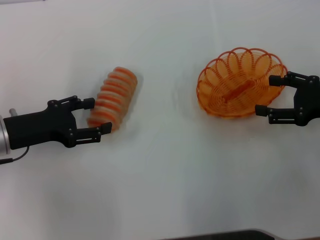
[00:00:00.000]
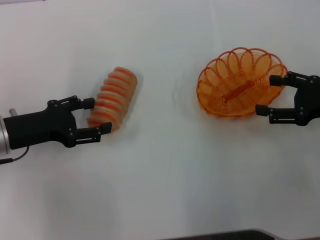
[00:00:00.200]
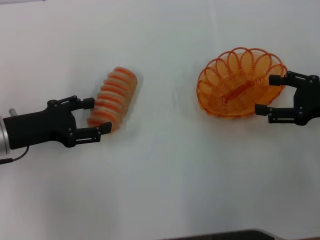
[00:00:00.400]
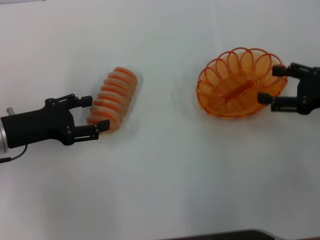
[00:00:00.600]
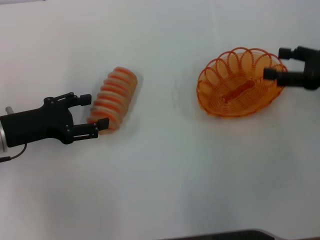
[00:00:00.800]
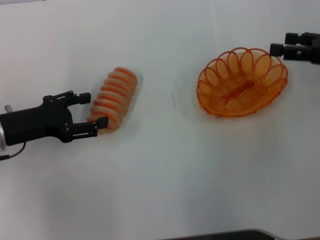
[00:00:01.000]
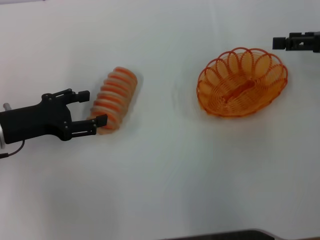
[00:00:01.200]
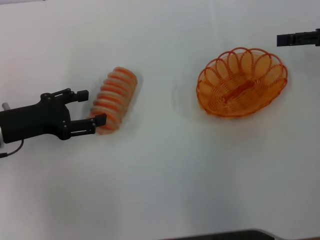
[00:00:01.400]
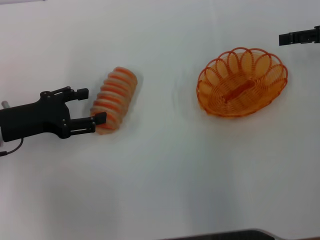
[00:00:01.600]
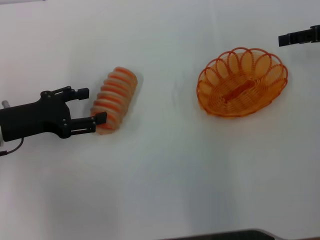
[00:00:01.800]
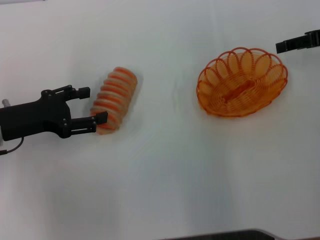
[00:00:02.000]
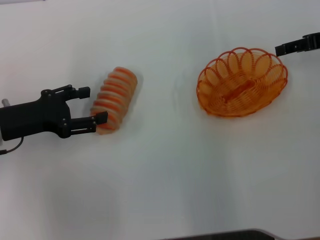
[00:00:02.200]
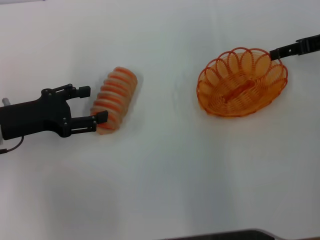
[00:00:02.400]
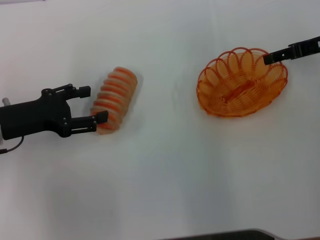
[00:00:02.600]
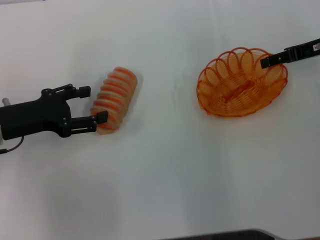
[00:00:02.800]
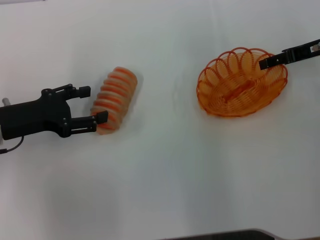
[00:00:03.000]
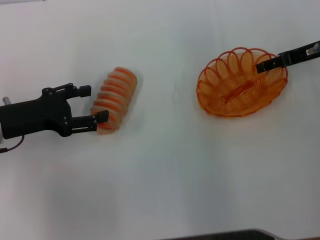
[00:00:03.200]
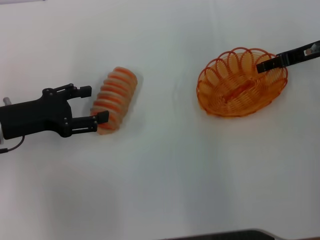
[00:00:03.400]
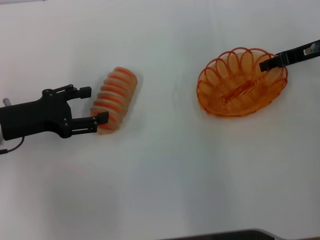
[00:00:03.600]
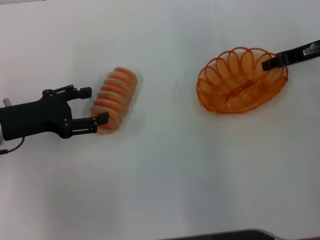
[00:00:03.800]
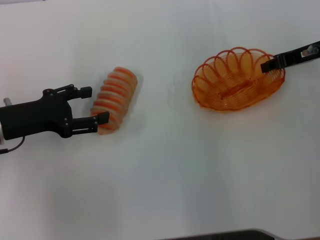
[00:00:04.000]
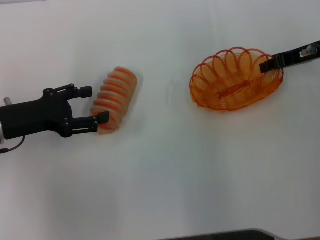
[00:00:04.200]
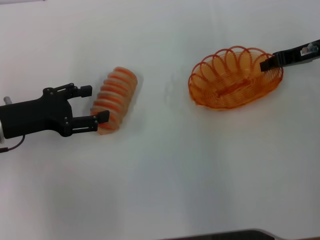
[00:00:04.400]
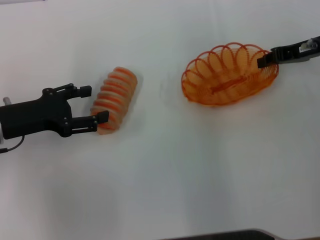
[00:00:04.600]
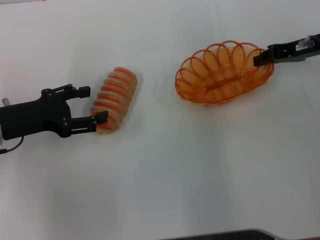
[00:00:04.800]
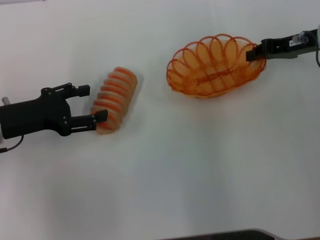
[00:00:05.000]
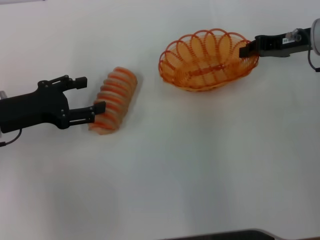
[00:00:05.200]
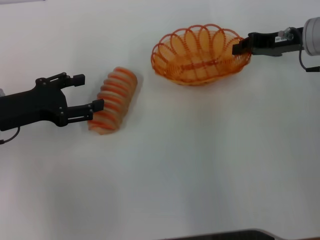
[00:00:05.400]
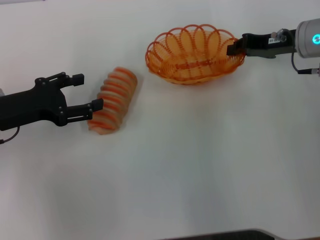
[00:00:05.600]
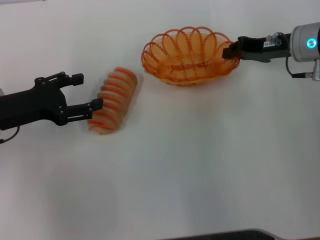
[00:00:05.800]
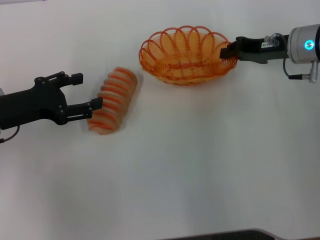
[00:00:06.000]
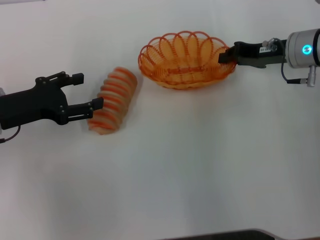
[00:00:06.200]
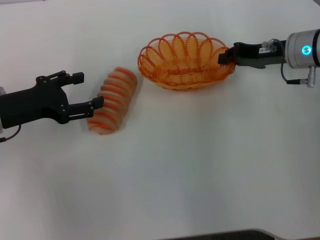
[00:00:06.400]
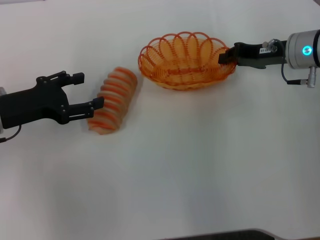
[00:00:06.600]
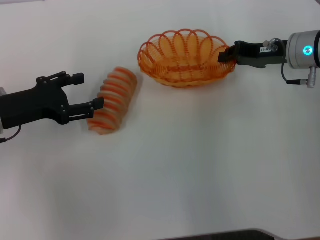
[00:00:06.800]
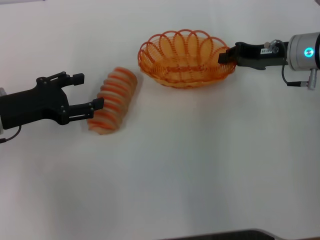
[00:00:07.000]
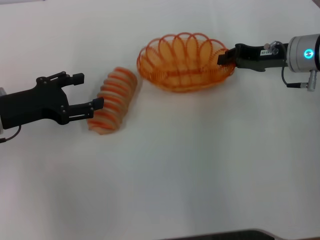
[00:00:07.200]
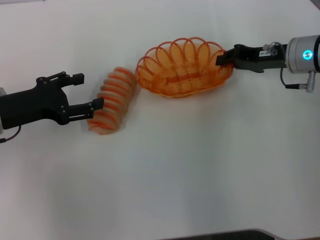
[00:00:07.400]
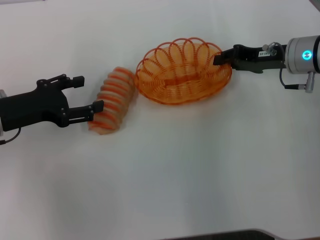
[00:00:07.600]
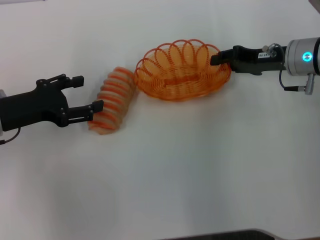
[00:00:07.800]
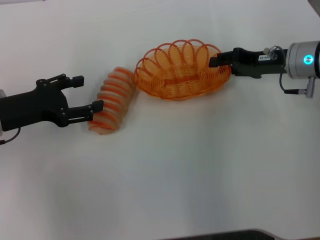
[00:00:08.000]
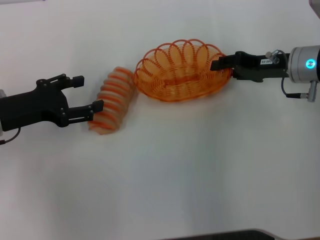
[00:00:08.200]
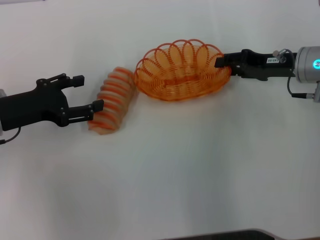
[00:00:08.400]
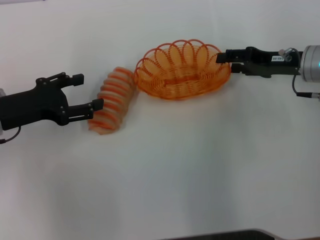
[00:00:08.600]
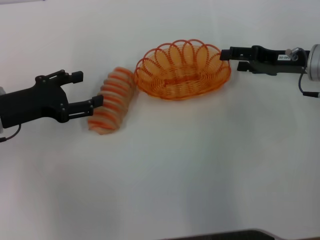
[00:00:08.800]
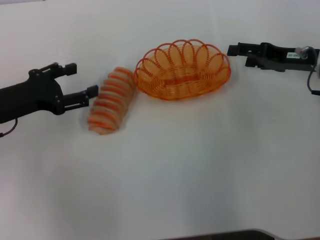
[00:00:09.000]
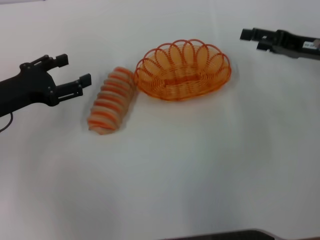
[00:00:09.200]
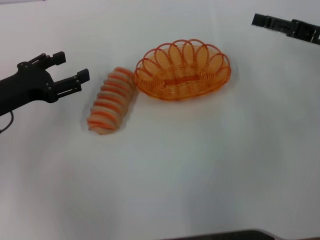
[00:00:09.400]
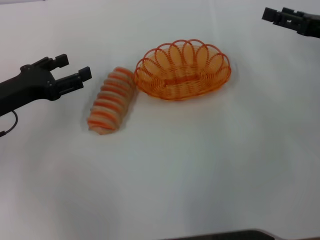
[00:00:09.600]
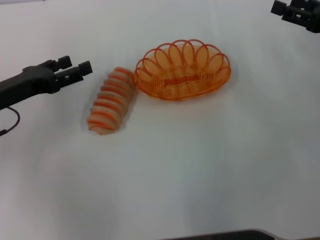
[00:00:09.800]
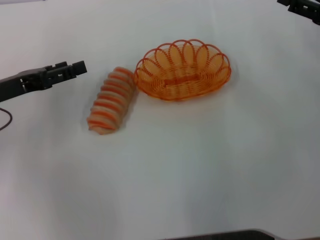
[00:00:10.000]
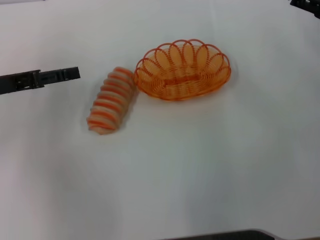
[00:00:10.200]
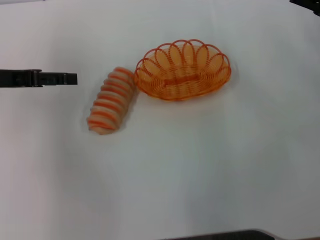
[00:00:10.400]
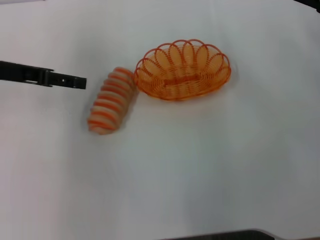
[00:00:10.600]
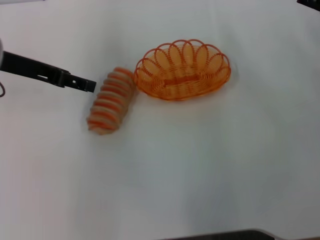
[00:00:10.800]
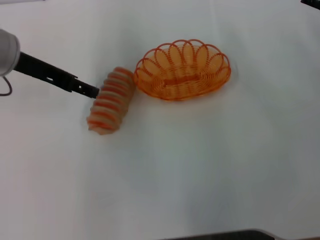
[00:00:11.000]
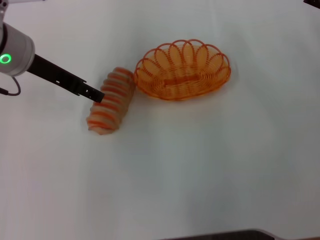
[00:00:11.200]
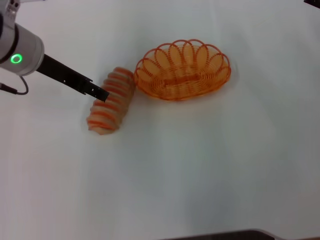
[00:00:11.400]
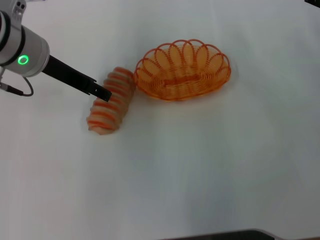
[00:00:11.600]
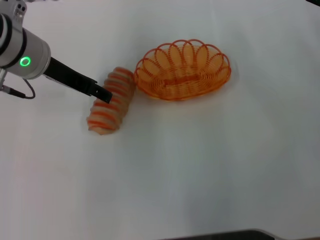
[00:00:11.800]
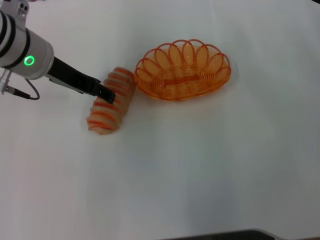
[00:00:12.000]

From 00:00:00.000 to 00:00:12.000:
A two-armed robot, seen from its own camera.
Step, from 00:00:00.000 to 00:00:04.600: Pick up the basket with the right gripper.
Step, from 00:00:04.800 to 00:00:09.000: Place the basket in the center of view with the right gripper.
From 00:00:00.000 to 00:00:01.600: The right gripper shifts about 10 cm forward and upward.
From 00:00:01.600 to 00:00:03.000: The right gripper moves roughly 5 cm.
From 00:00:03.000 to 00:00:04.400: The right gripper closes its fingers.
From 00:00:04.400 to 00:00:06.000: The right gripper changes place by some 5 cm.
From 00:00:06.000 to 00:00:07.600: There are only small adjustments of the grippers.
From 00:00:07.600 to 00:00:09.000: The right gripper opens.
From 00:00:09.000 to 00:00:10.400: The left gripper heads upward, covering about 5 cm; the right gripper shifts about 5 cm to the right.
From 00:00:10.400 to 00:00:12.000: The left gripper shifts about 10 cm to the right.

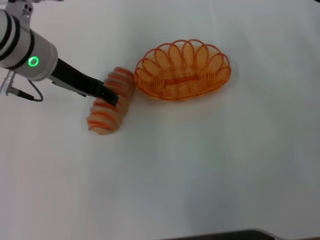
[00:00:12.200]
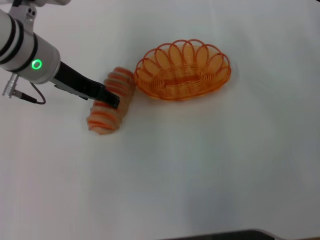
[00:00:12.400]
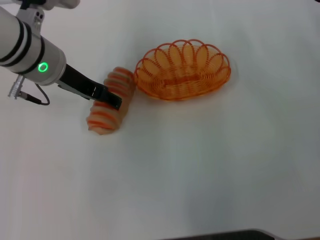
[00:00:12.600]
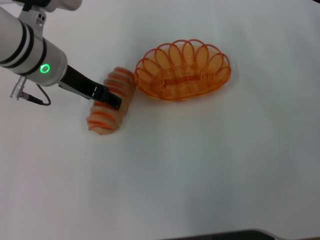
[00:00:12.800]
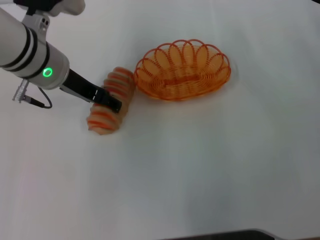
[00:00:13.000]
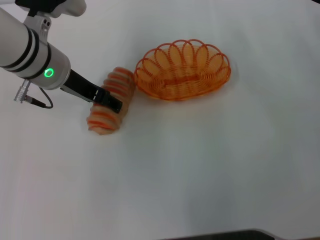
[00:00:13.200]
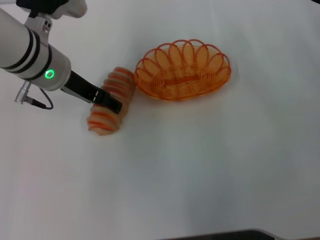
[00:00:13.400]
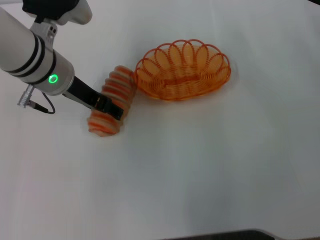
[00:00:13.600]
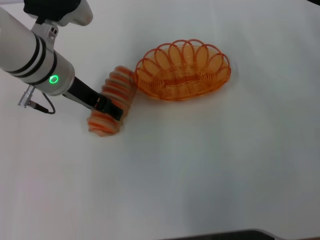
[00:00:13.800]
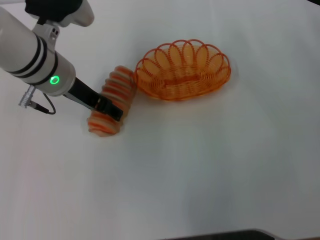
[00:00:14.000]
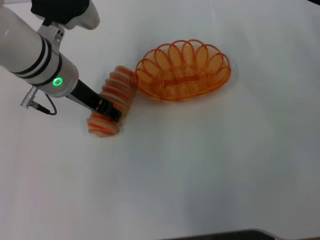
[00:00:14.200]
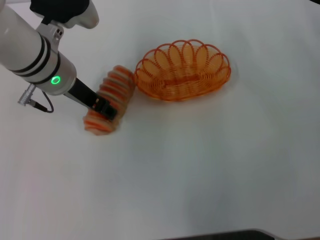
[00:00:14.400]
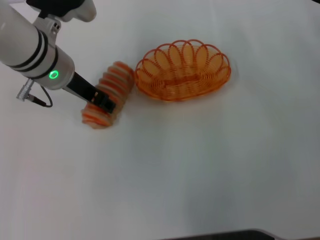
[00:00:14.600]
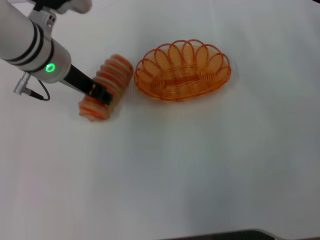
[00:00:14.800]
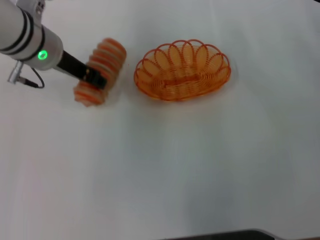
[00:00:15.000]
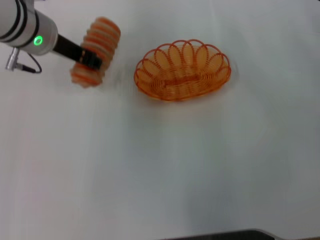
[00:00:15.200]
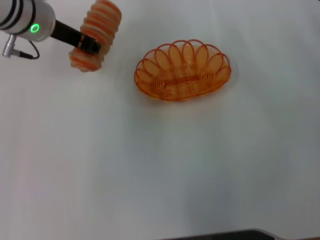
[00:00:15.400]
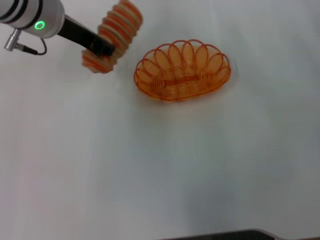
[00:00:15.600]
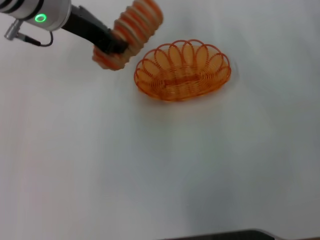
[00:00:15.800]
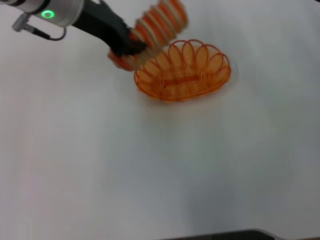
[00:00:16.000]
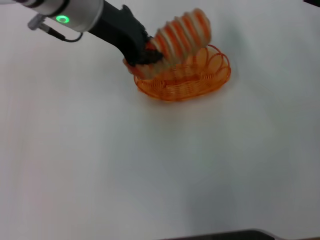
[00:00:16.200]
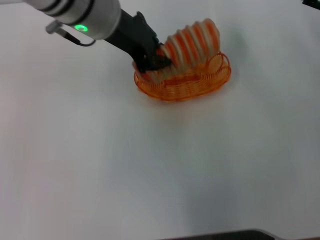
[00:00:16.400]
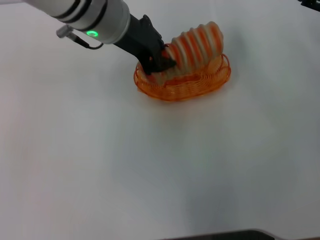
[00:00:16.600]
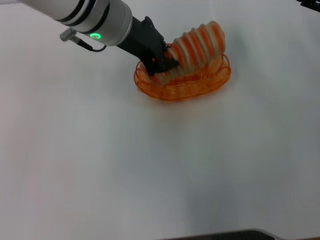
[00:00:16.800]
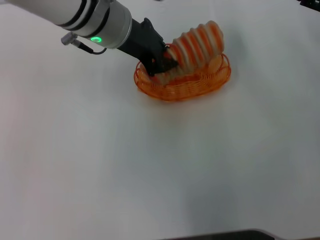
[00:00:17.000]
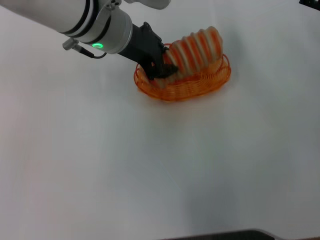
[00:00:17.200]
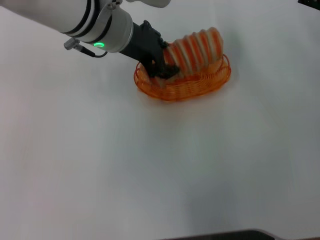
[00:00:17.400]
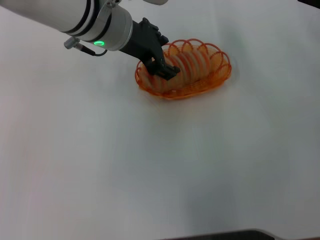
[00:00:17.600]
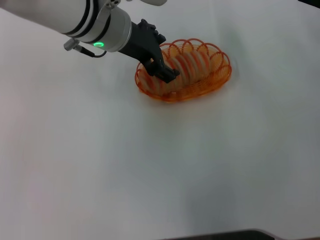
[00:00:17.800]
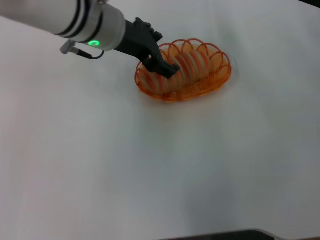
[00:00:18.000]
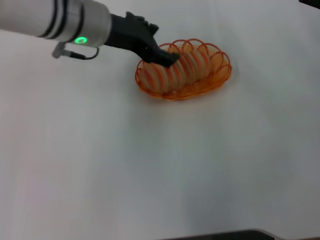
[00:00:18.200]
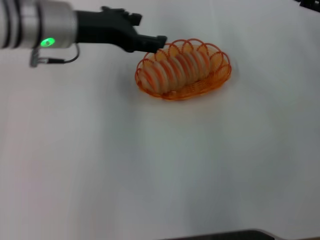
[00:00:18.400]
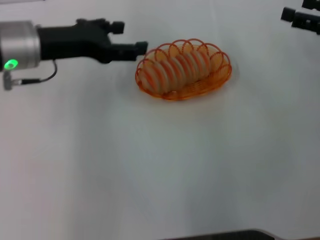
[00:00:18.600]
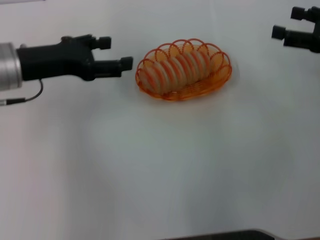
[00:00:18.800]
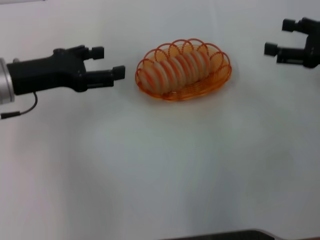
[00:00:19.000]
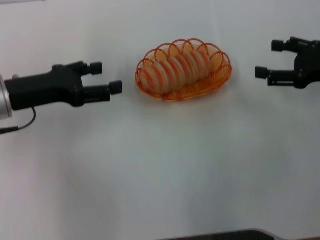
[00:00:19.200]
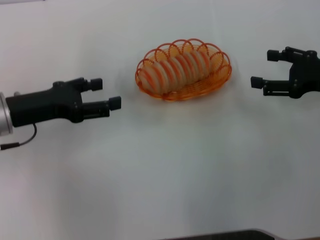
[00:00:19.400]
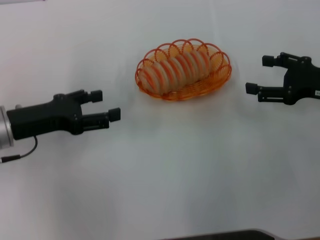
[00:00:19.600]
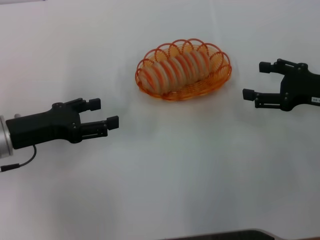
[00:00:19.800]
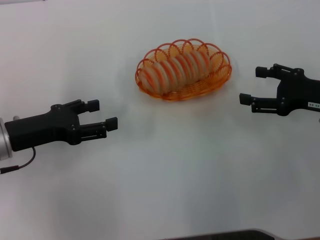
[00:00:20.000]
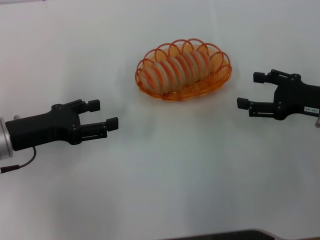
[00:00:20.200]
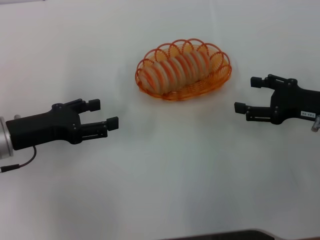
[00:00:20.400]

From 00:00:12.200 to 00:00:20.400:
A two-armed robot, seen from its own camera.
Step, from 00:00:12.200 to 00:00:14.800: Pick up the long bread with the left gripper.
Step, from 00:00:15.000 to 00:00:18.400: Place the long bread into the basket with the left gripper.
From 00:00:12.200 to 00:00:13.800: The grippers move only a little.
From 00:00:13.800 to 00:00:15.400: The left gripper changes place by about 5 cm, and closes up.
From 00:00:15.400 to 00:00:17.200: The left gripper goes some 10 cm to the right.
From 00:00:17.200 to 00:00:18.800: The left gripper heads to the left, covering some 15 cm, and opens up.
From 00:00:18.800 to 00:00:20.400: The right gripper travels downward by about 5 cm; the left gripper travels downward and backward by approximately 10 cm.
